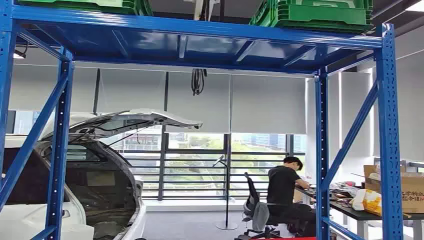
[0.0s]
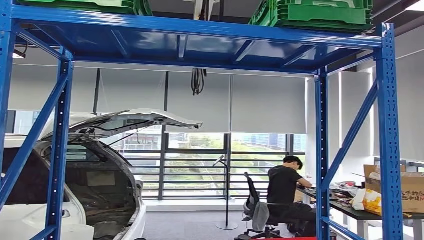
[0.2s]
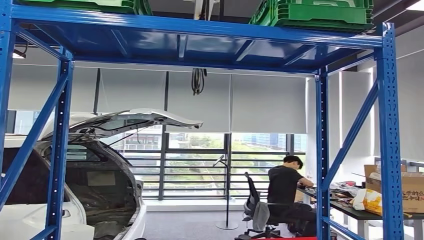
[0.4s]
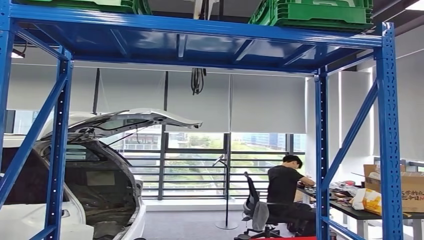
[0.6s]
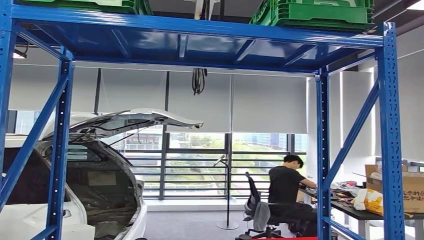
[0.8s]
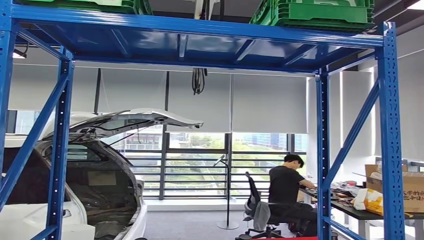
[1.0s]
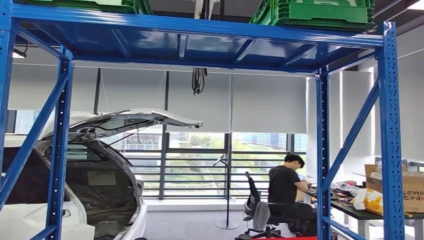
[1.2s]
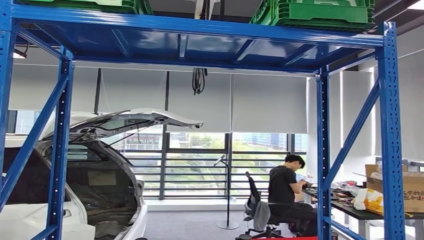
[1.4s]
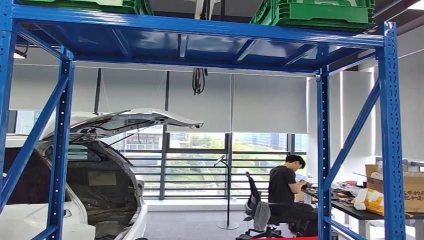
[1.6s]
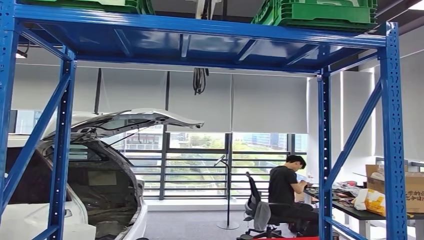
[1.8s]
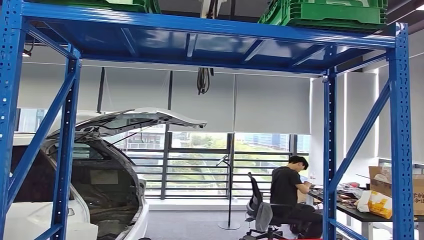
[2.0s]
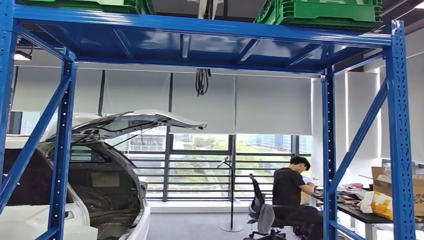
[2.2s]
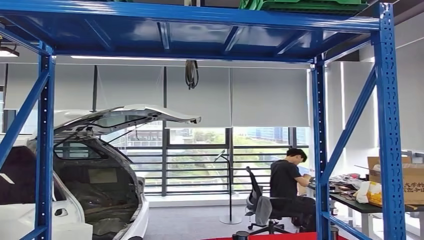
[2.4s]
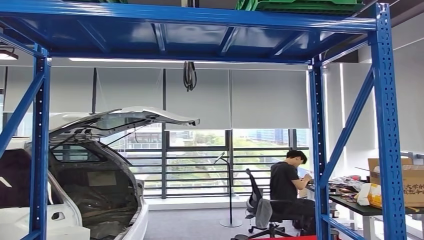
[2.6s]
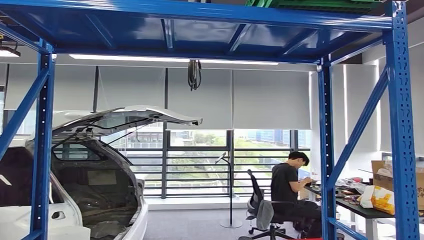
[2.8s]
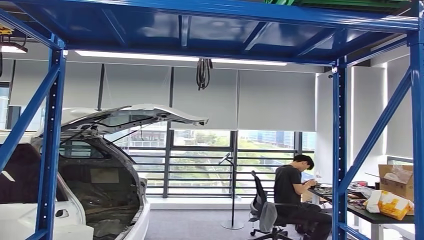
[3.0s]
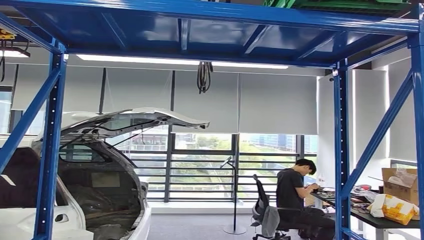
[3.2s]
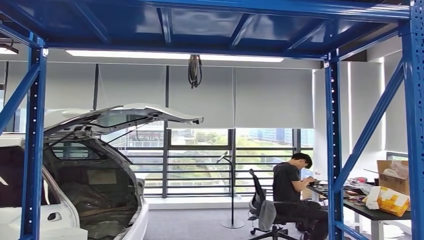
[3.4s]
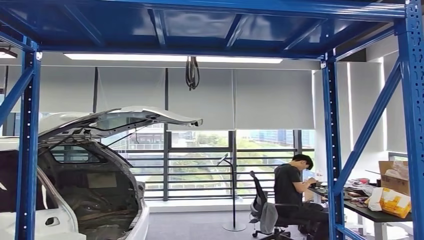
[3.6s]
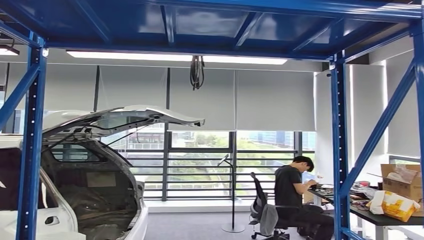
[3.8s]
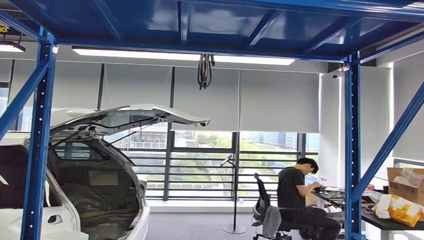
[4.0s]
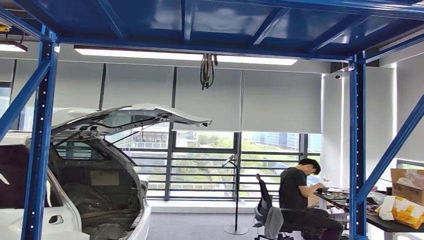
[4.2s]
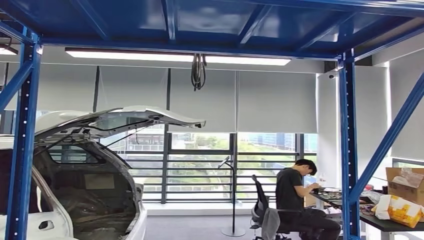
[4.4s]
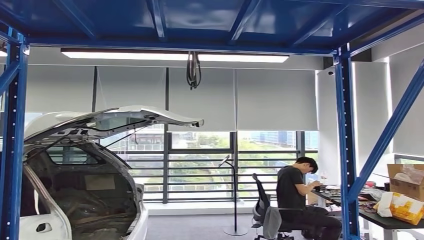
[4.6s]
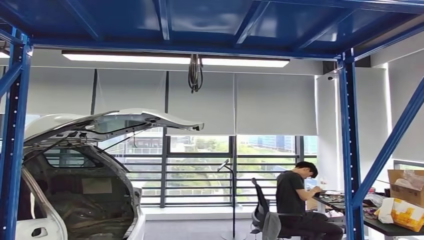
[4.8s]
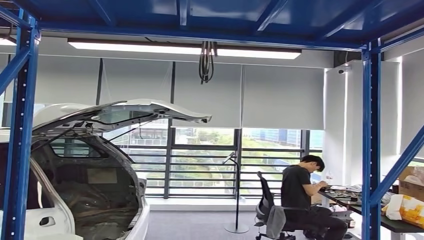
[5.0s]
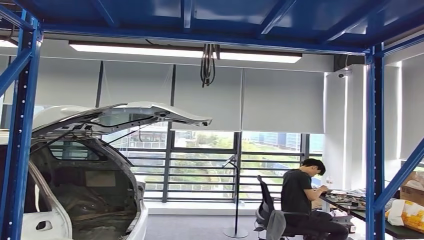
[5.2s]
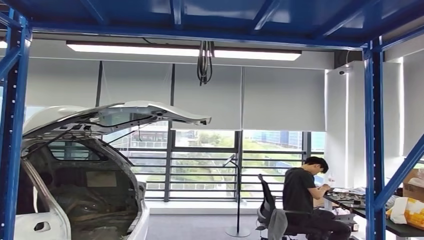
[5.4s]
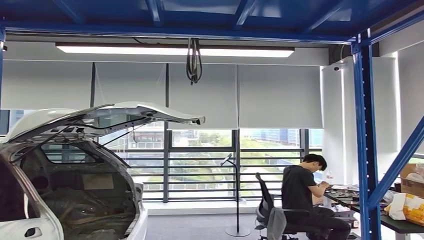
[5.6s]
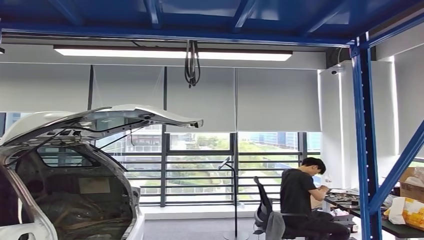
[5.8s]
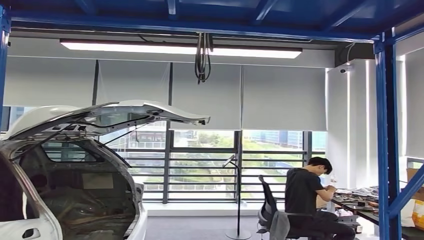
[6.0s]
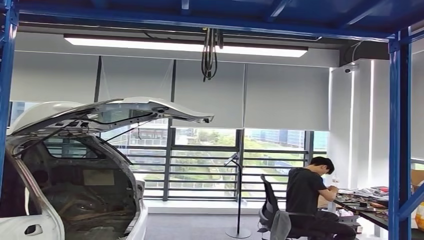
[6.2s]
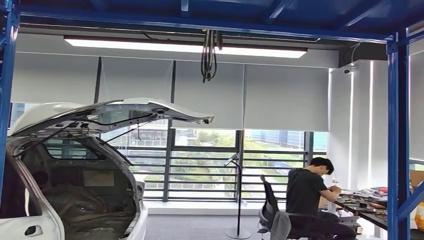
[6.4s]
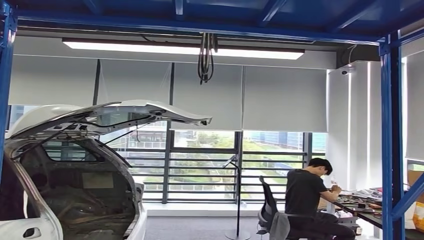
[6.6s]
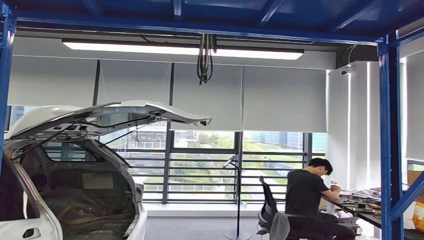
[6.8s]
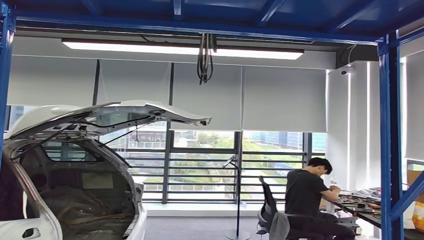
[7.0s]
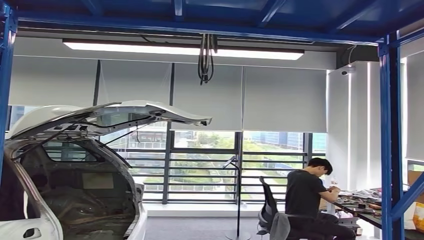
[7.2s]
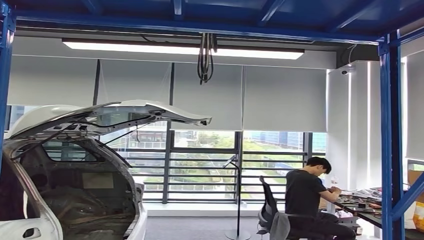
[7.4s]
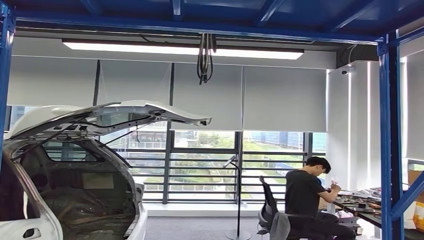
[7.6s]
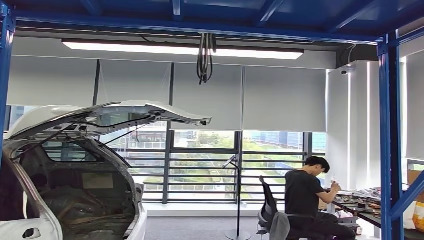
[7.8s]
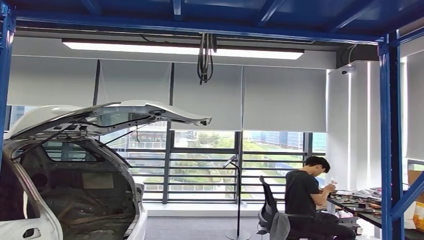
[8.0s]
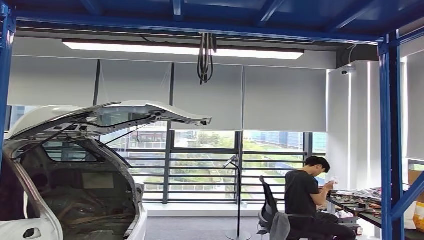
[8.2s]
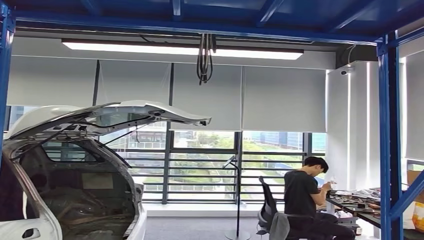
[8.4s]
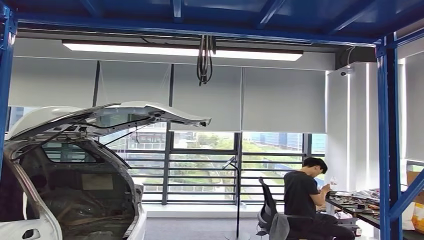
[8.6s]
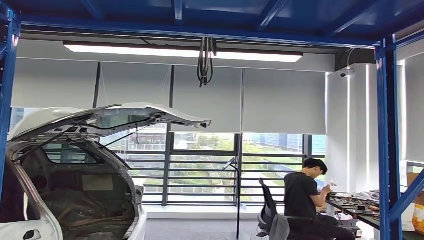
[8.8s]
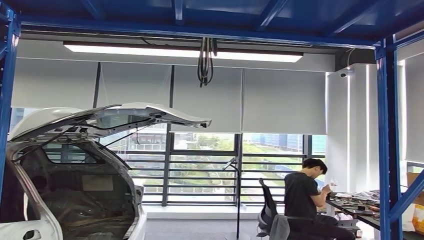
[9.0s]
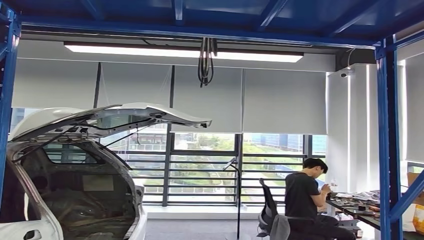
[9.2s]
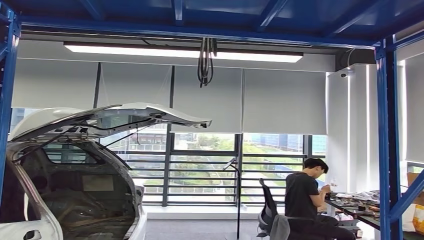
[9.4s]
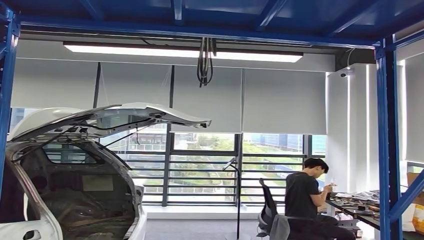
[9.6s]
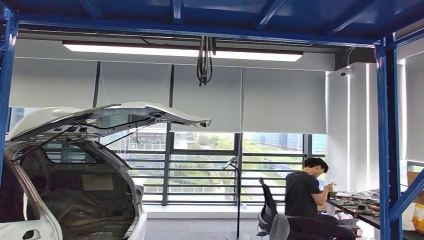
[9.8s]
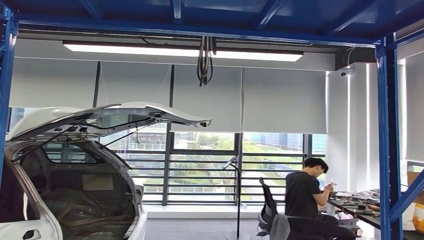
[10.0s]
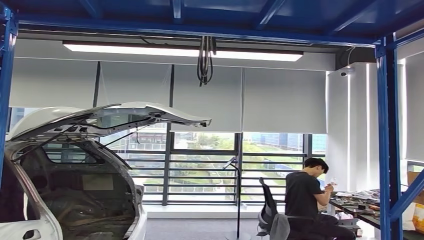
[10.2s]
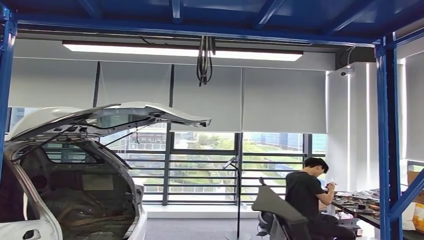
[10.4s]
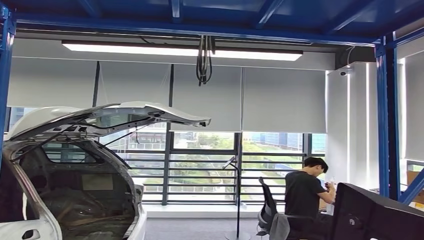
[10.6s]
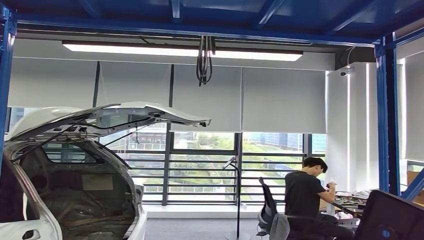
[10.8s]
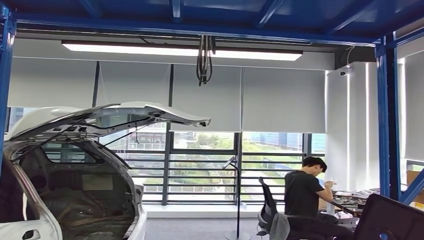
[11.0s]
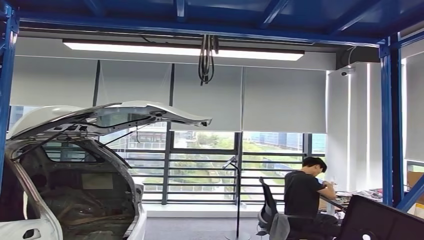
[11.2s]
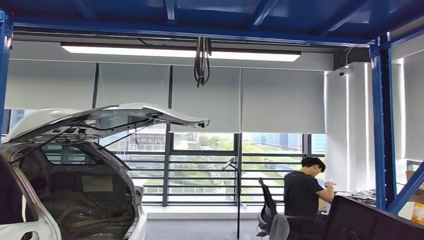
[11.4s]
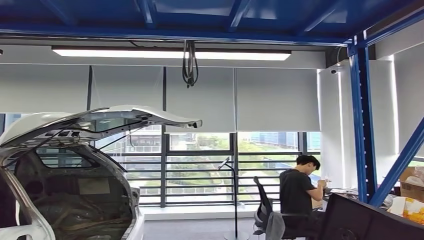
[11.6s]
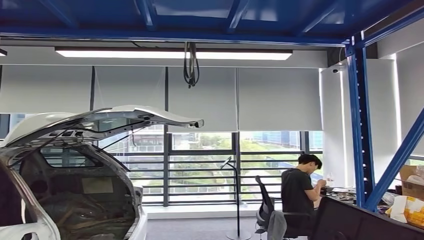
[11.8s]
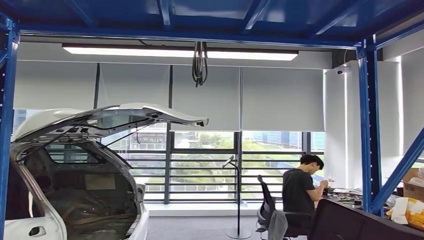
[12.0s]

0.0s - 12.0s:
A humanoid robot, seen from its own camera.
Step, 0.0s - 9.6s: Pick up the small component from the shelf.
6.0s - 7.6s: The right hand moves forward and downward, some 15 cm.
9.0s - 10.4s: The right hand is displaced upward and backward by about 15 cm.

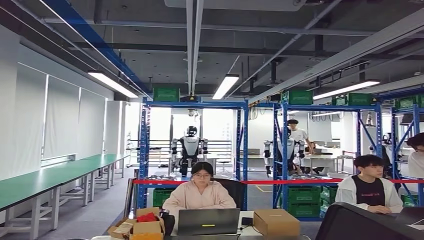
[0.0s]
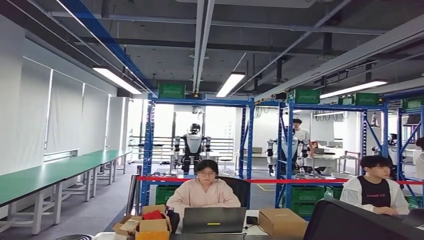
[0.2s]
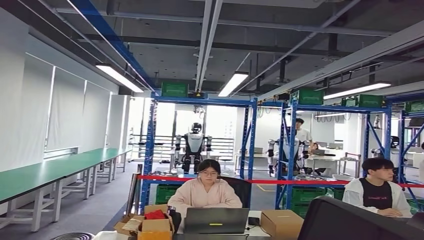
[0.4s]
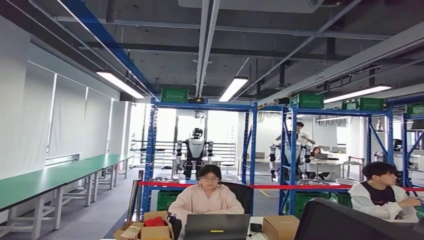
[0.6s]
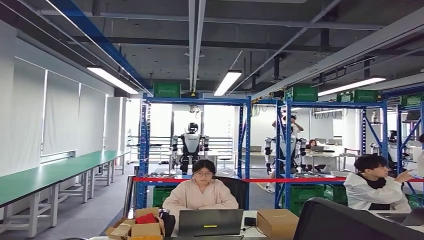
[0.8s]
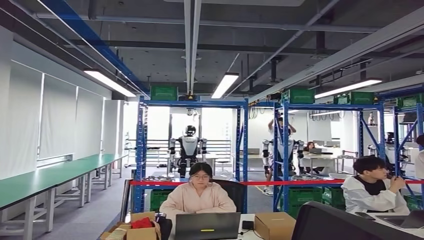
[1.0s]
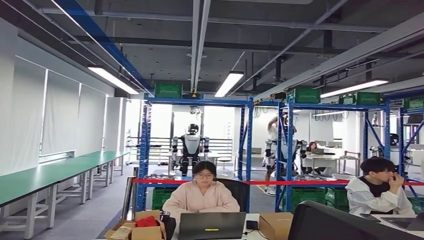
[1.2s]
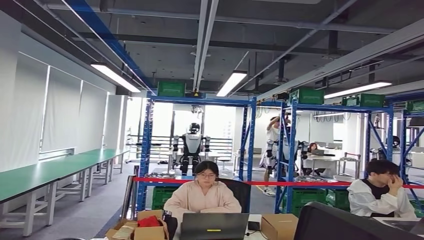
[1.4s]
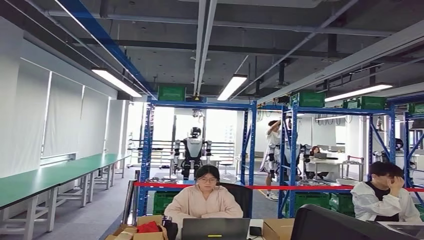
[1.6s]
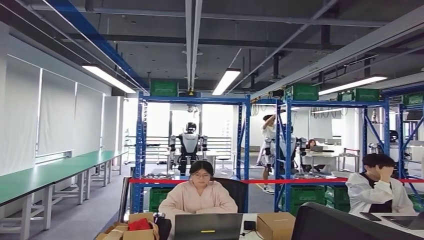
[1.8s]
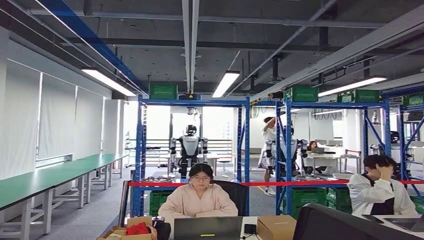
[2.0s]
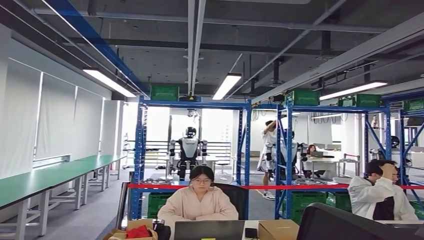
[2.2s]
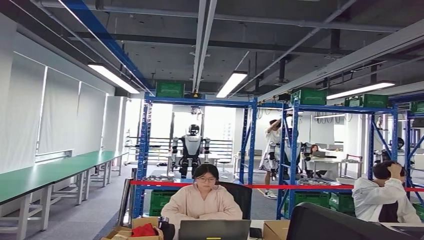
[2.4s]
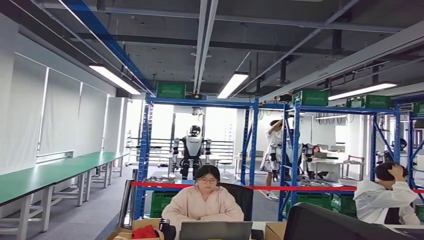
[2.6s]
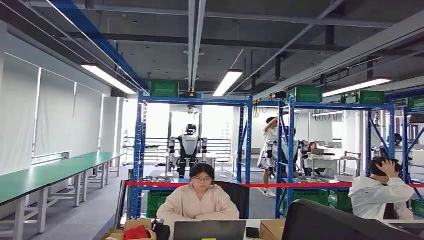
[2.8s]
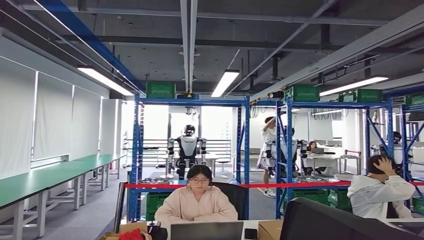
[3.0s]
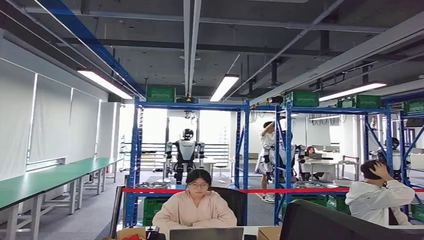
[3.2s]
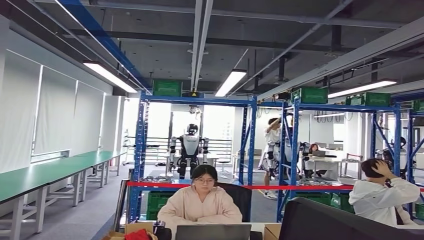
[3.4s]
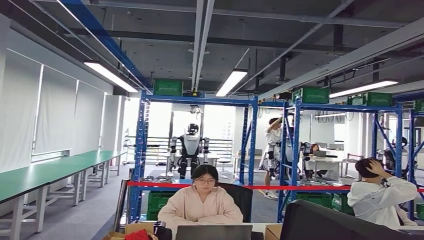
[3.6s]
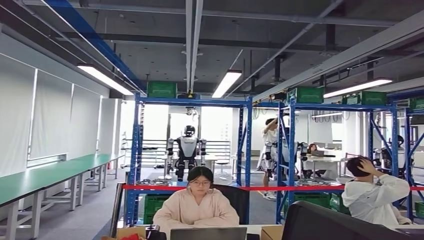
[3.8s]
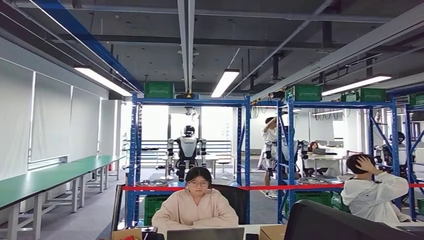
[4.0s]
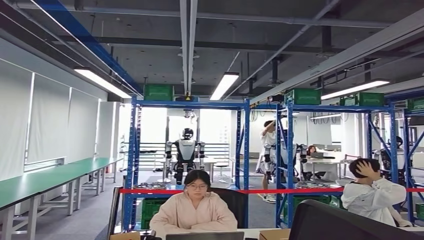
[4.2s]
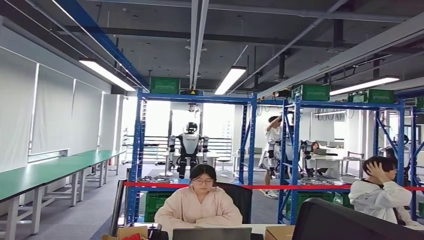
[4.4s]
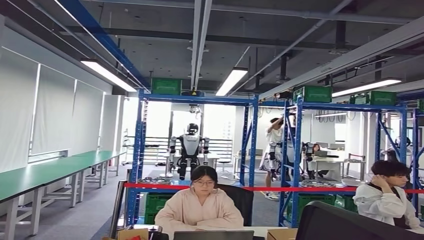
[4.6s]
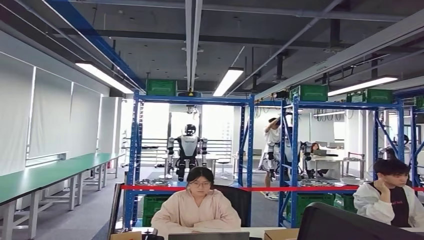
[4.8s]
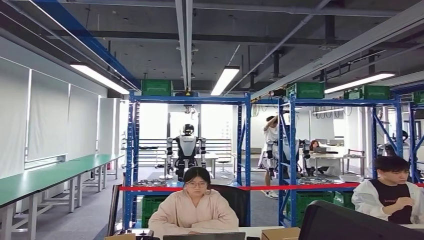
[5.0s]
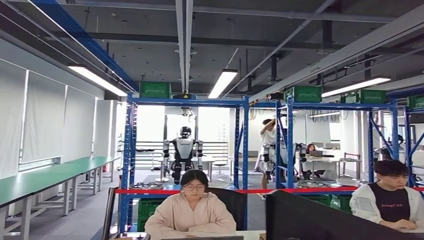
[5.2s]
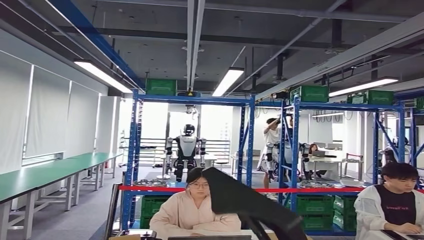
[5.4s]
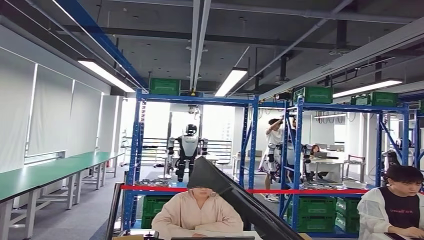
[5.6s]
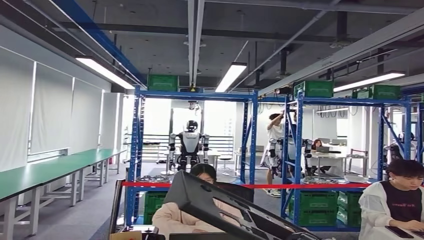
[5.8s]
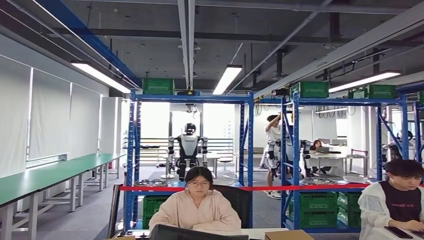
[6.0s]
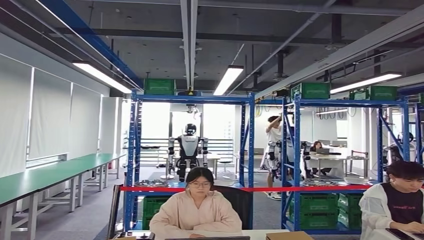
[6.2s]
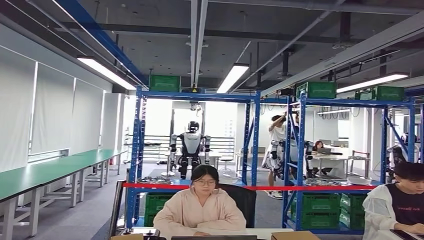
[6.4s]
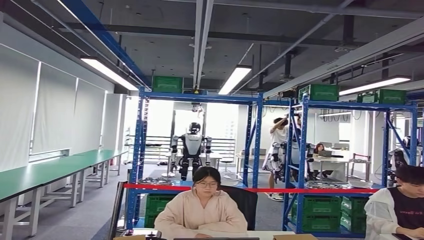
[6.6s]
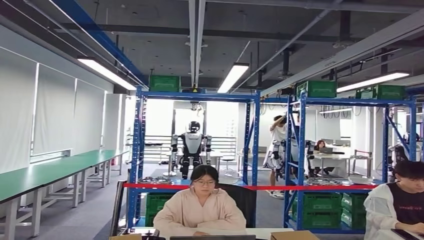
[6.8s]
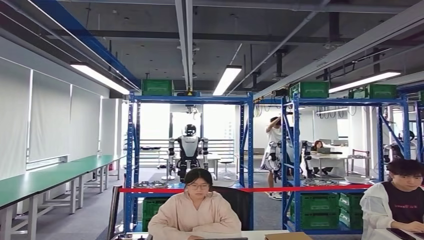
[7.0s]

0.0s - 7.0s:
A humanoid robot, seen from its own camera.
Step, 0.0s - 6.0s: Move the small component to the workbench.
